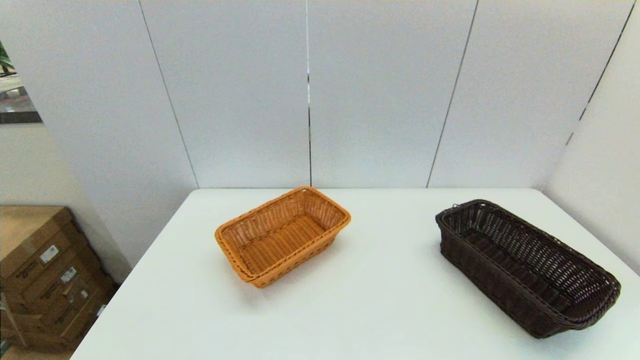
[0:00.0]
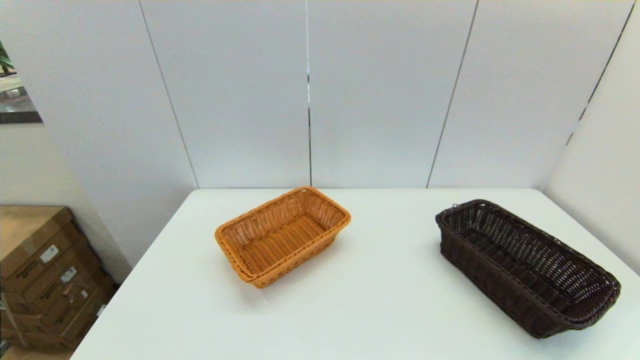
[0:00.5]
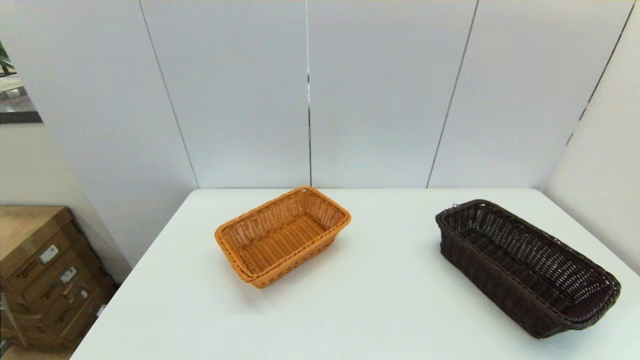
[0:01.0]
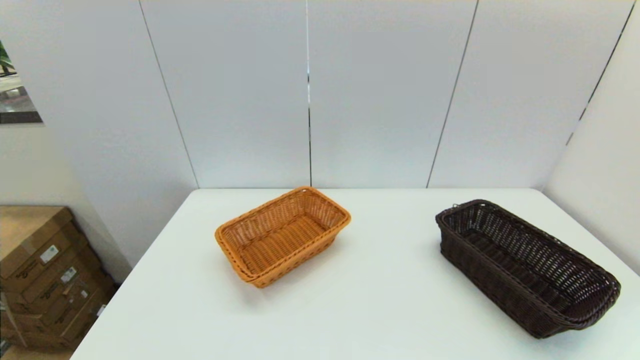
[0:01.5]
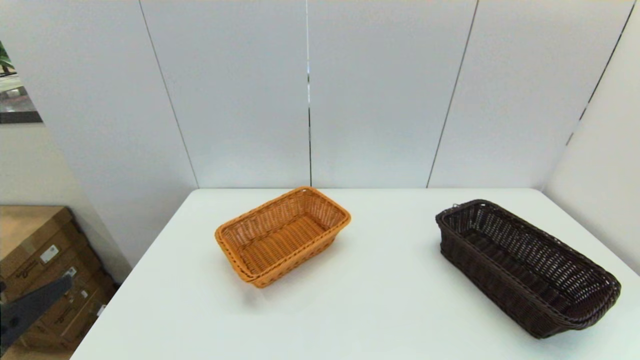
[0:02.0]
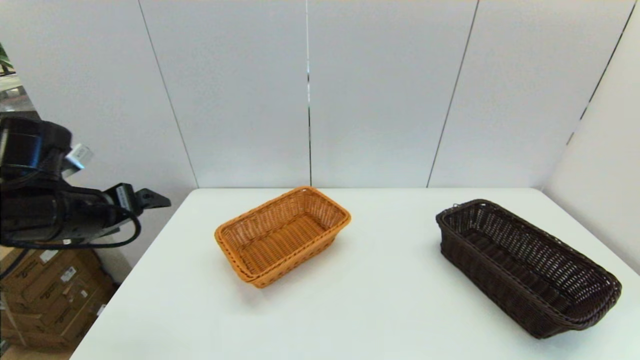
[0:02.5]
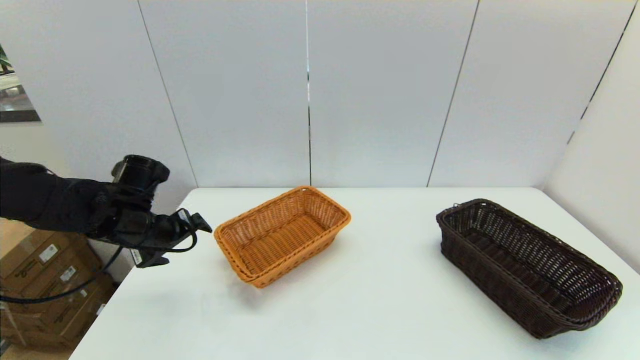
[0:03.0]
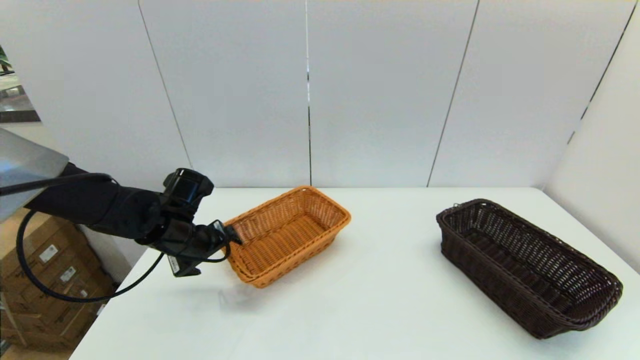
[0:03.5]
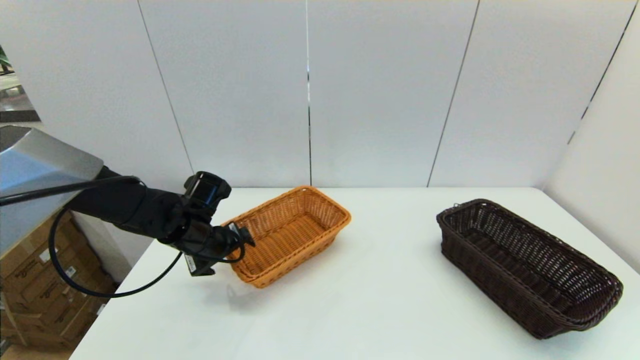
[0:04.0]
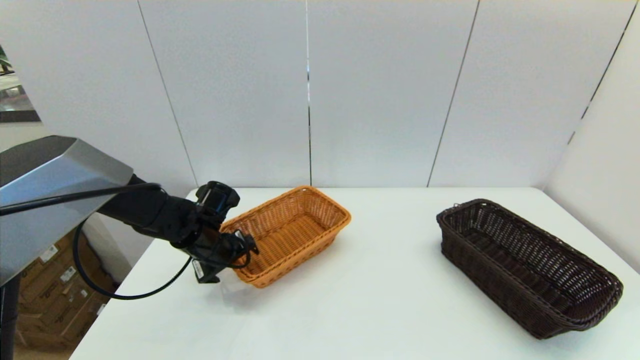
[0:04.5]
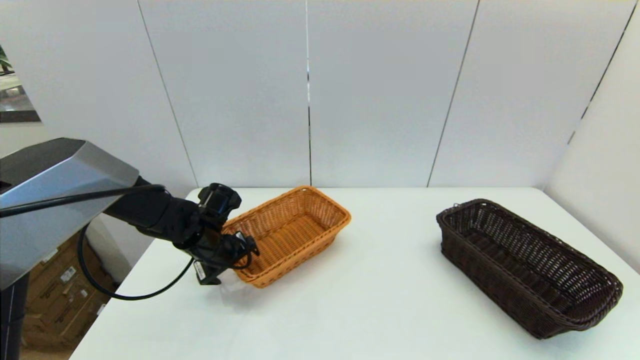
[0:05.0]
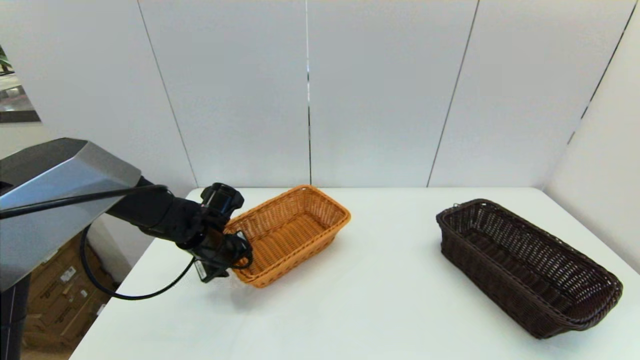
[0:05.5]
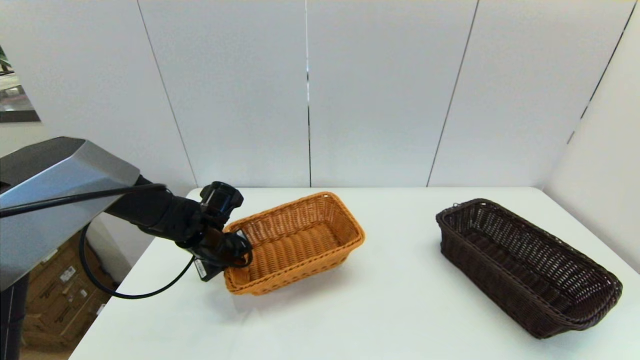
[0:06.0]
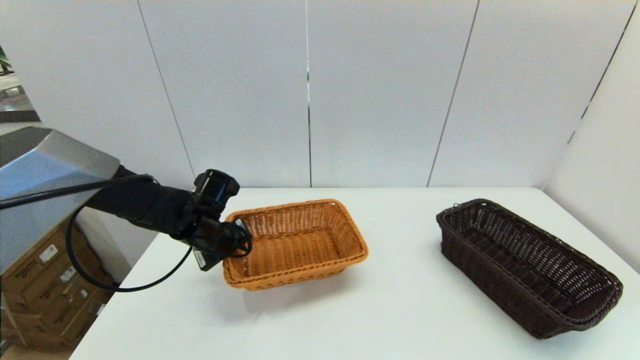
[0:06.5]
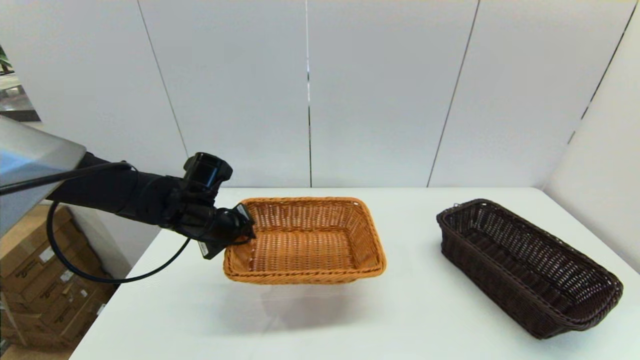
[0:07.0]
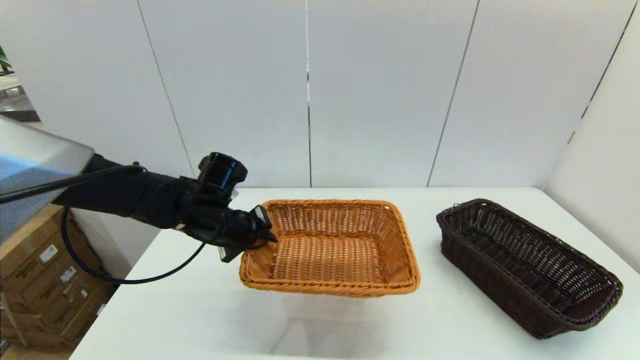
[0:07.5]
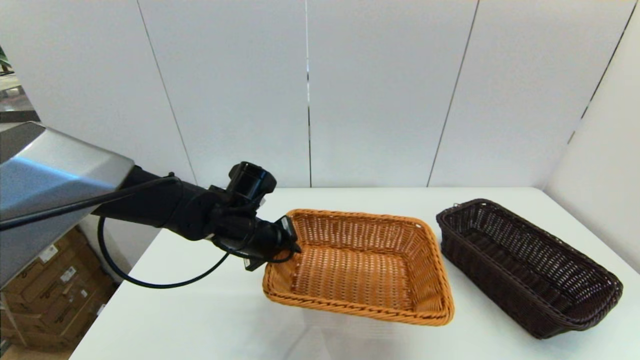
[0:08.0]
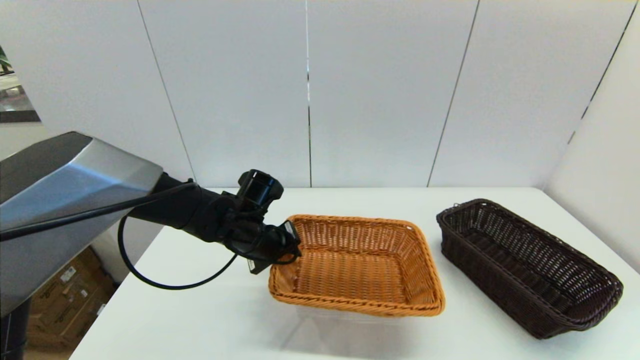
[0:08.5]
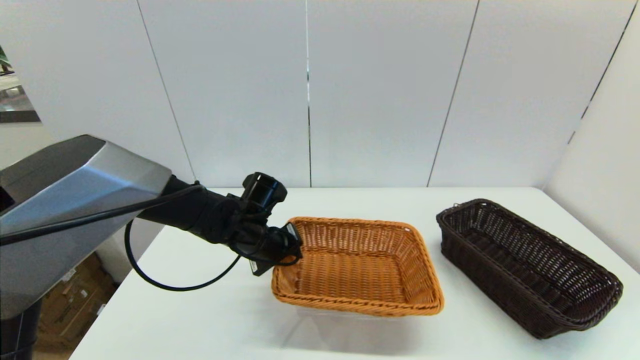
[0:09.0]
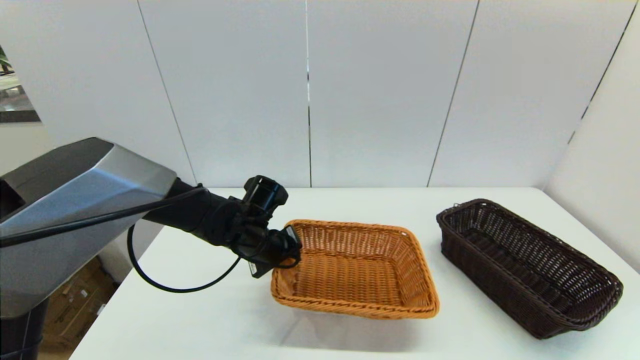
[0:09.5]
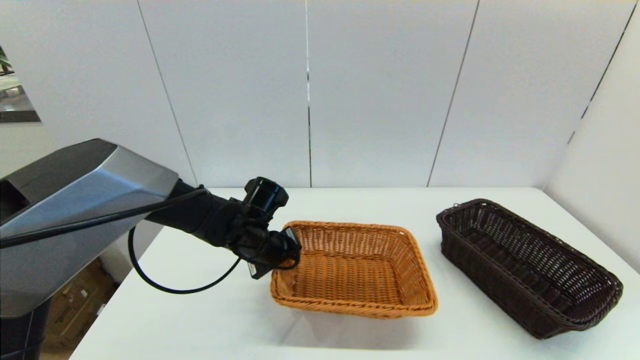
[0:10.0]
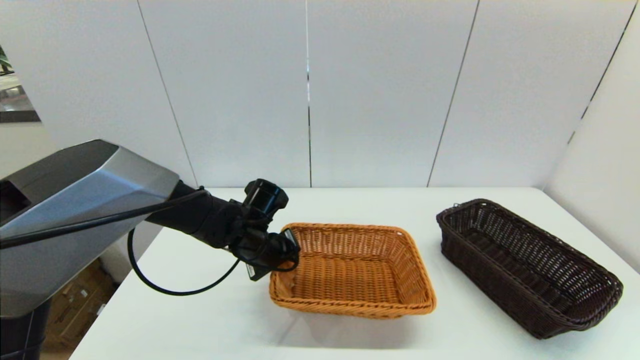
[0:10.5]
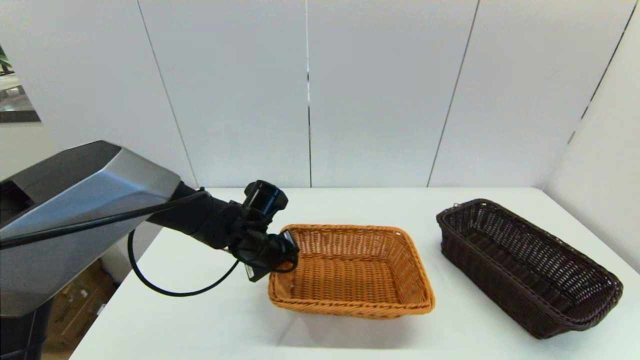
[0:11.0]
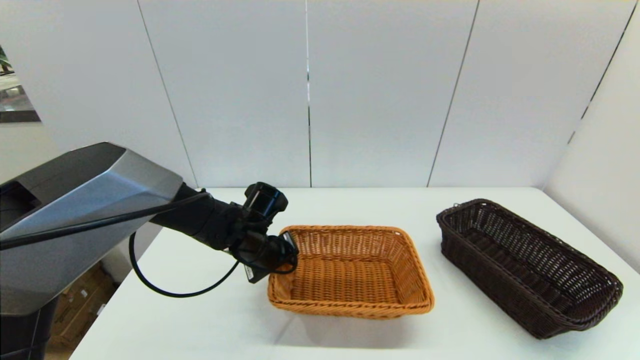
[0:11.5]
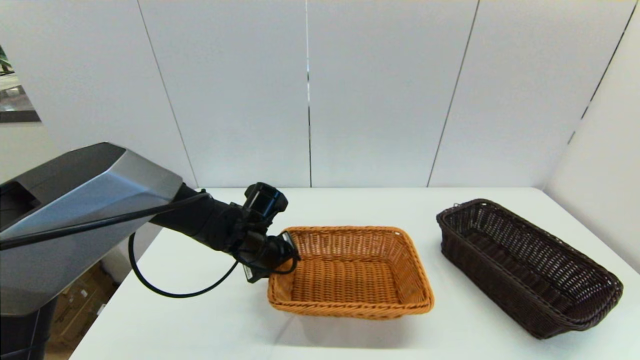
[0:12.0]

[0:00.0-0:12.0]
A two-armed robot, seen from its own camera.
Task of the whole recording: stack a basket on top of another basket.
Step, 0:02.0 to 0:06.0: Grasp the light basket with the left gripper.
0:02.0 to 0:04.0: The left gripper moves forward and downward, approximately 30 cm.
0:04.0 to 0:06.0: The left gripper closes up.
0:06.0 to 0:08.0: The left gripper heads to the right and upward, covering about 10 cm.
0:08.0 to 0:10.0: The grippers stay close to where they were, moving slightly.
0:10.0 to 0:12.0: The left gripper opens.

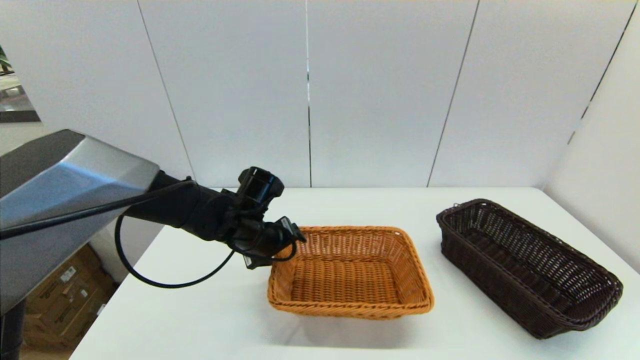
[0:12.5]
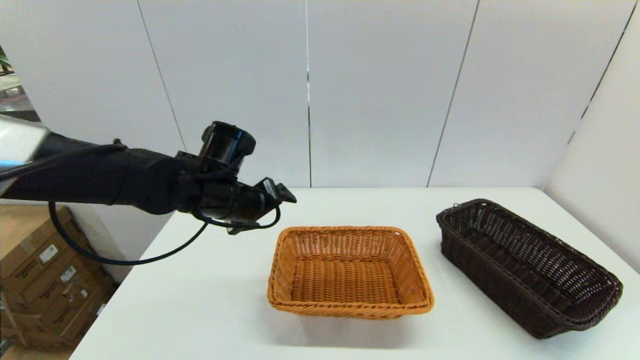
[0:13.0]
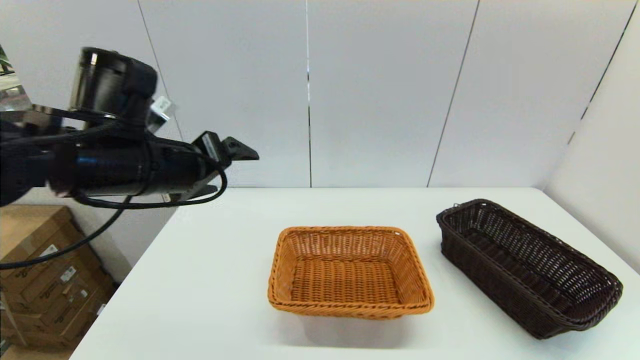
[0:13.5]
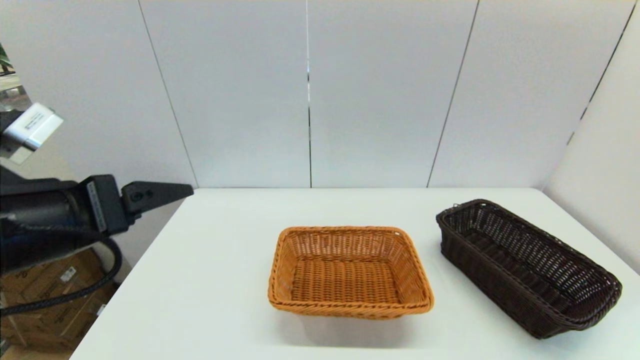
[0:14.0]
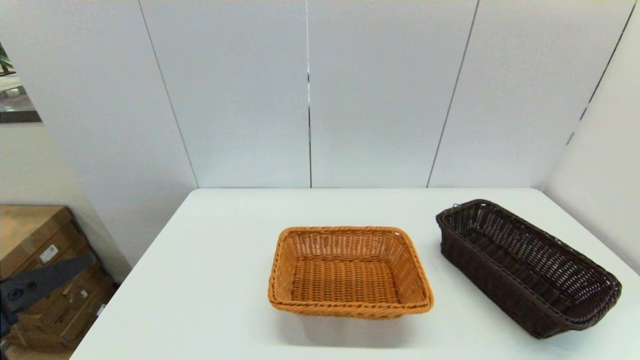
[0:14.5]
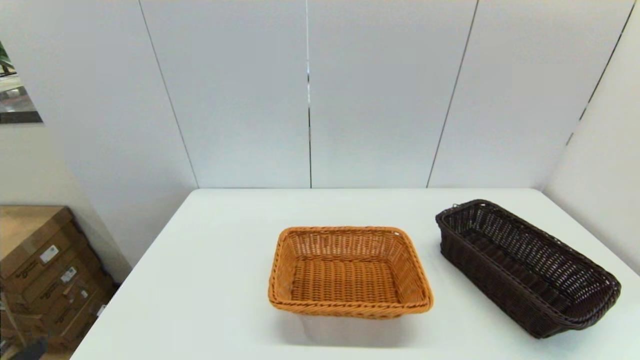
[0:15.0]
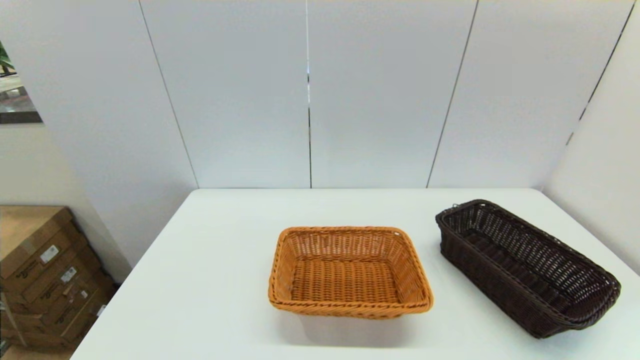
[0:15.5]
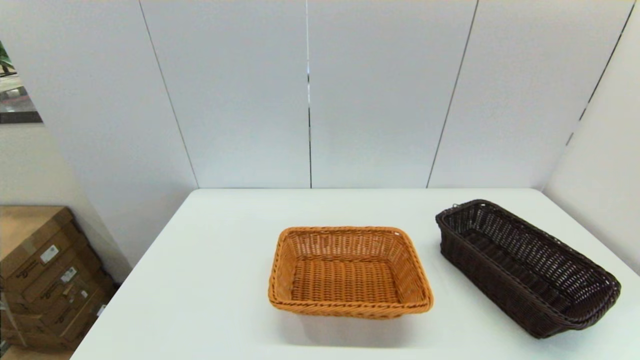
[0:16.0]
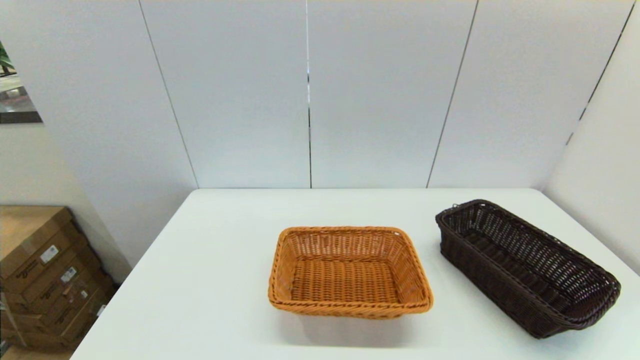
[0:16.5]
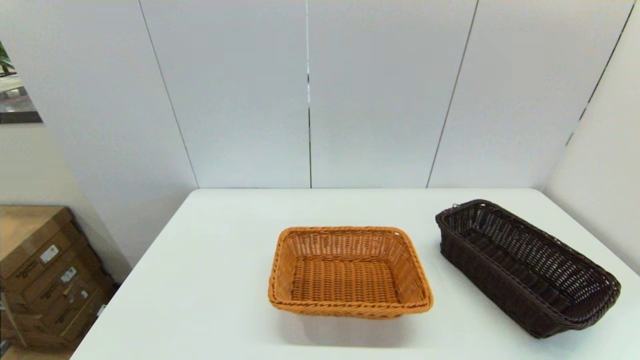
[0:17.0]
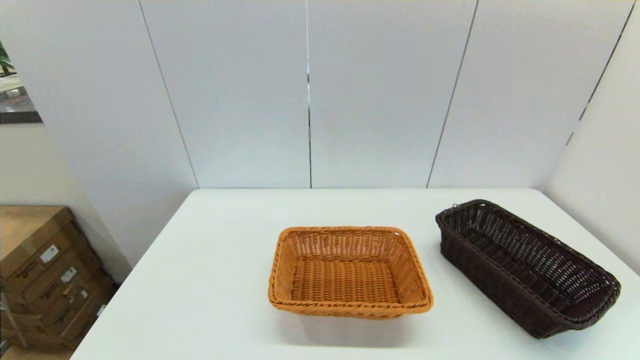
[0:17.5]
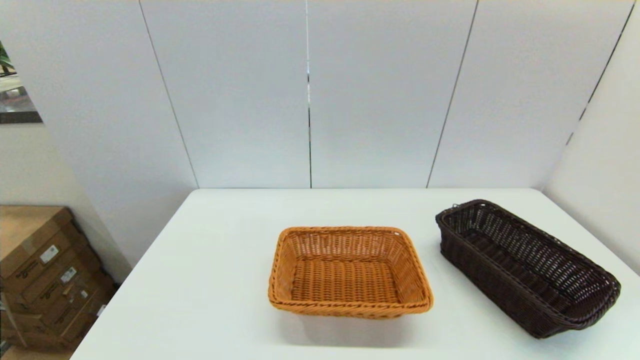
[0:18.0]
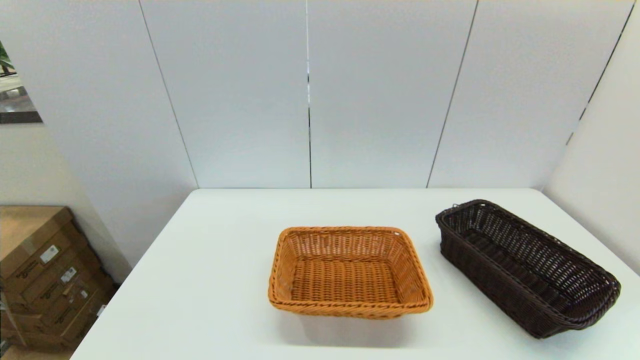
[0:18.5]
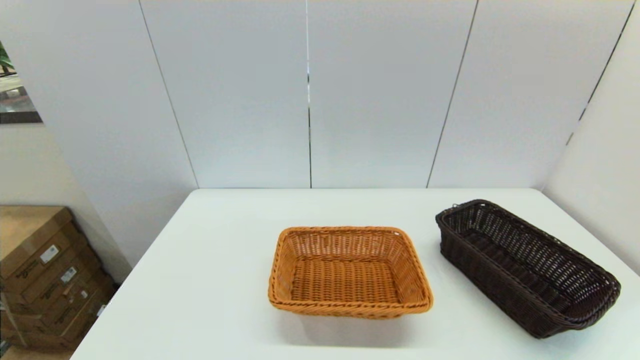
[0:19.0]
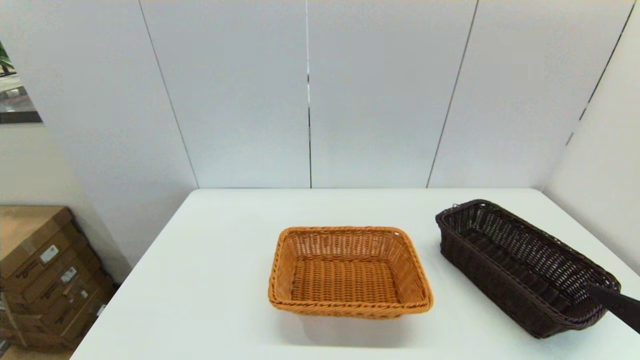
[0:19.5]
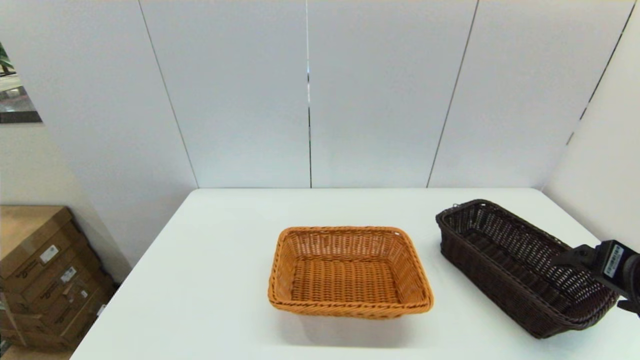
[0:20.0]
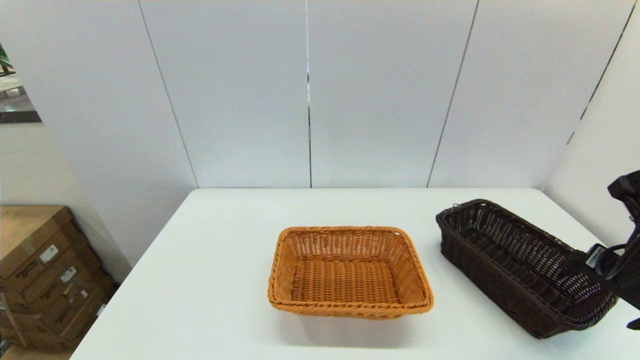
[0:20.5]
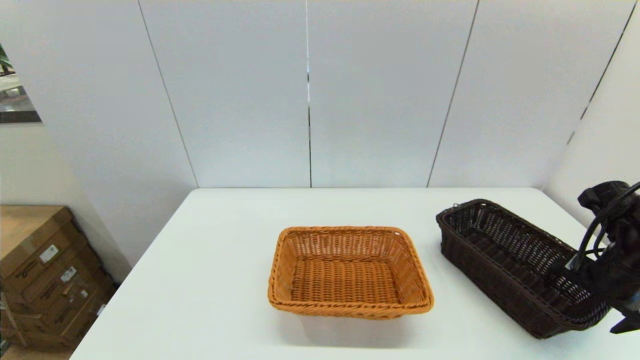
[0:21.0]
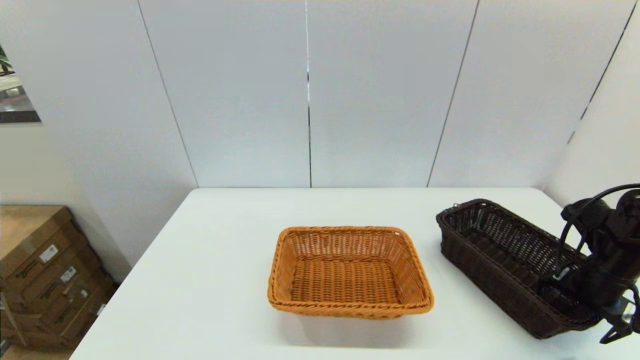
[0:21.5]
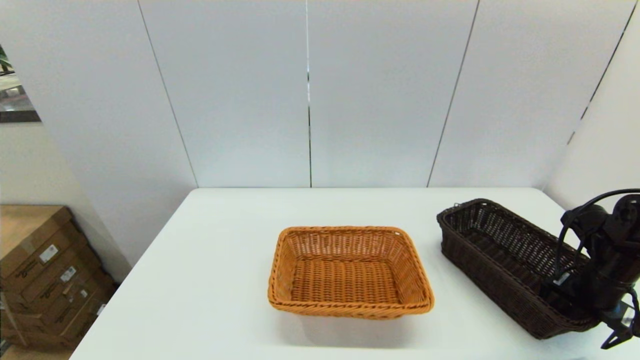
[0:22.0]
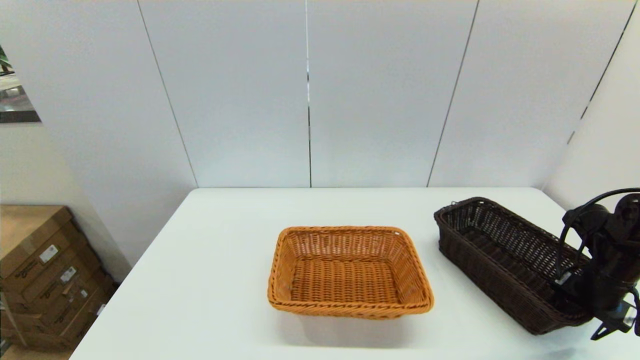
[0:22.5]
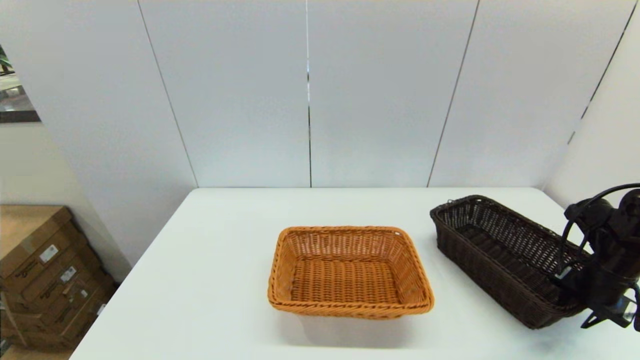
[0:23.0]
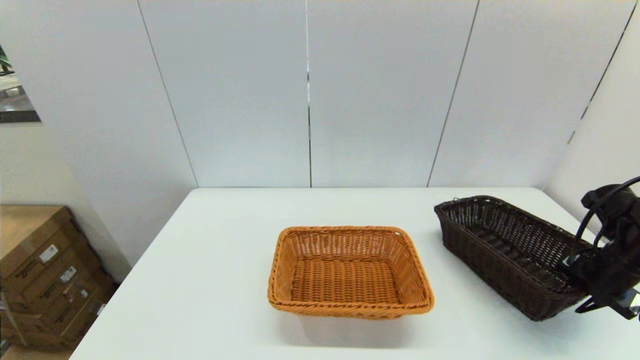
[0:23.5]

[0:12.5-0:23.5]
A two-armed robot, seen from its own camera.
Task of the whole recording: stack a basket on top of another basket.
0:12.5 to 0:14.5: The left gripper travels backward, to the left and upward by about 35 cm.
0:16.0 to 0:18.0: Both grippers stay put.
0:18.0 to 0:20.0: The right gripper travels forward and upward by some 20 cm.
0:20.0 to 0:21.5: The right gripper goes approximately 15 cm downward, forward and to the right.
0:21.5 to 0:23.5: The right gripper closes up.
